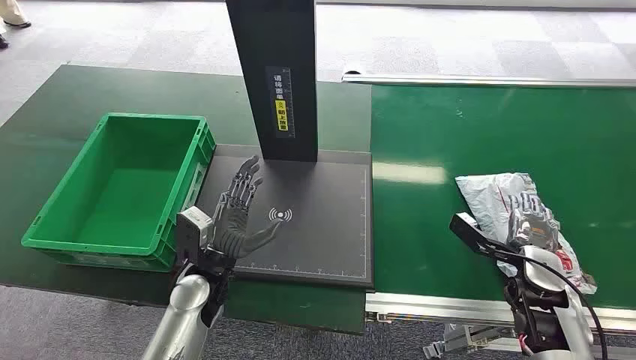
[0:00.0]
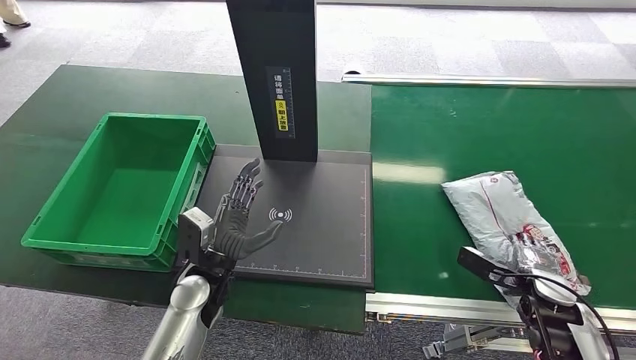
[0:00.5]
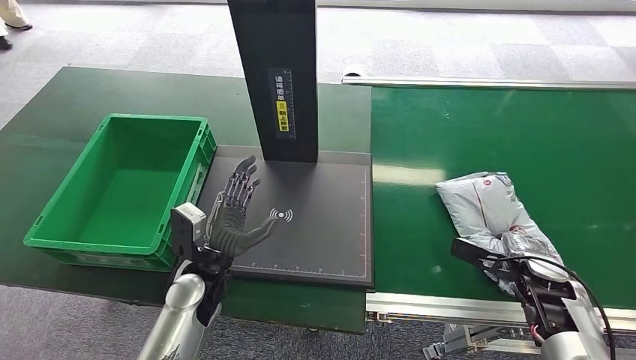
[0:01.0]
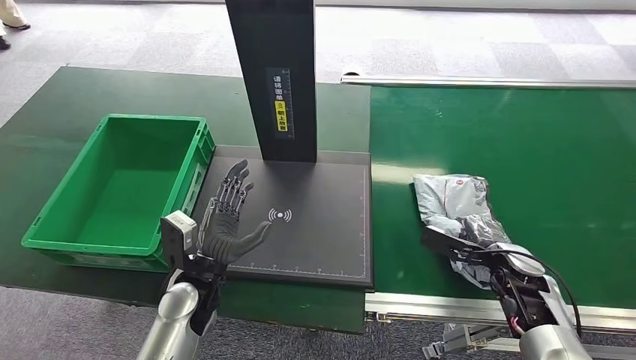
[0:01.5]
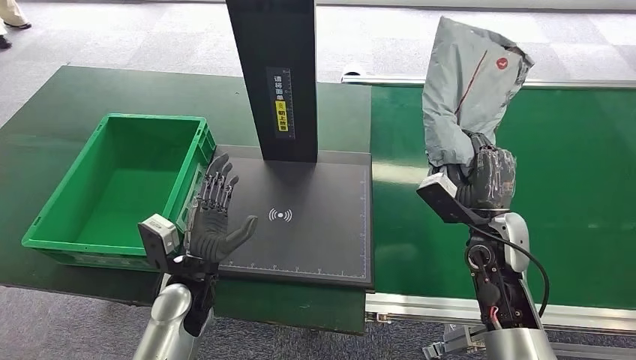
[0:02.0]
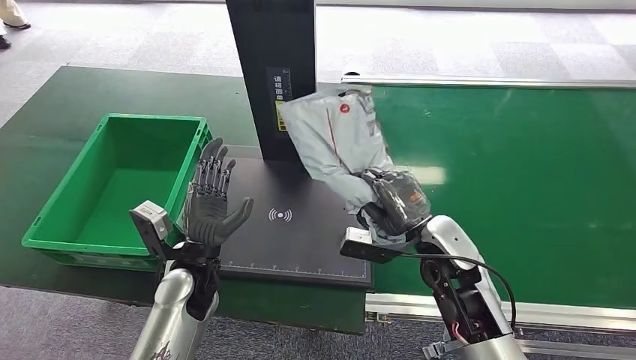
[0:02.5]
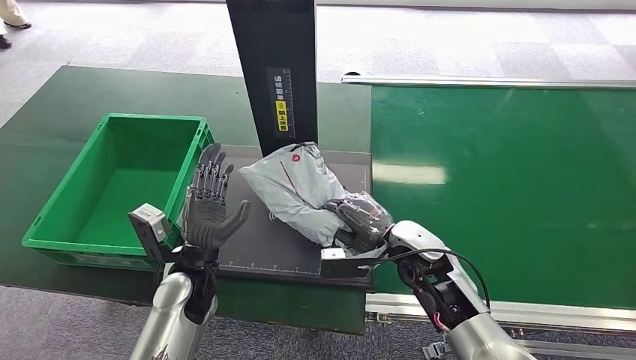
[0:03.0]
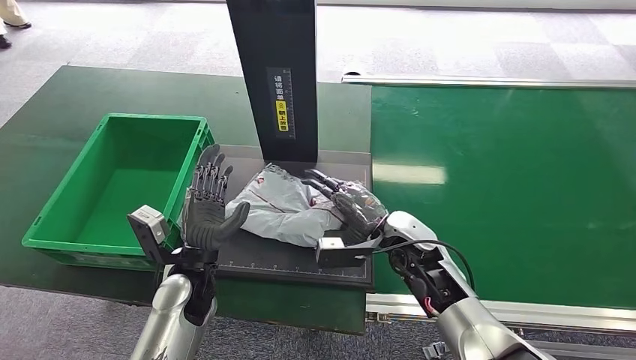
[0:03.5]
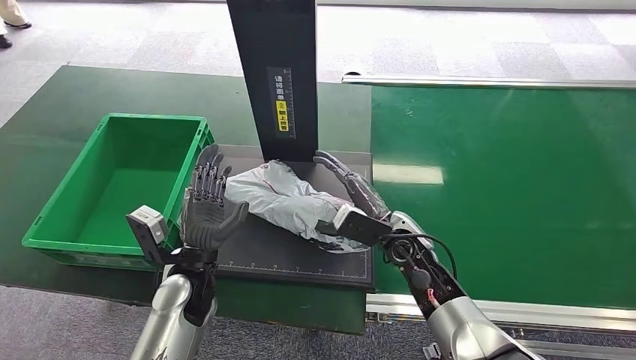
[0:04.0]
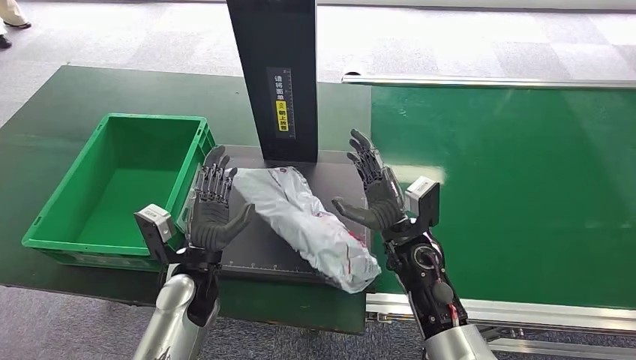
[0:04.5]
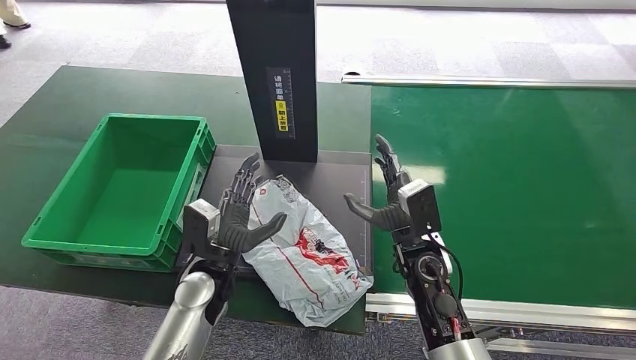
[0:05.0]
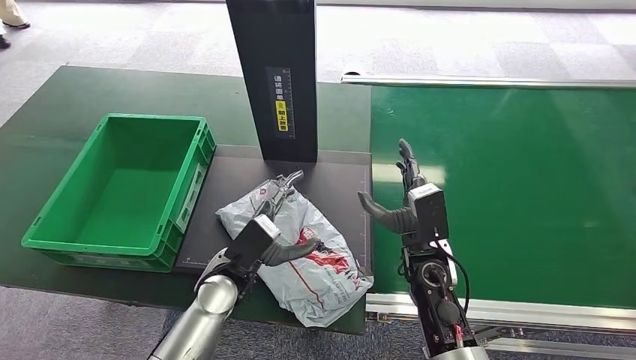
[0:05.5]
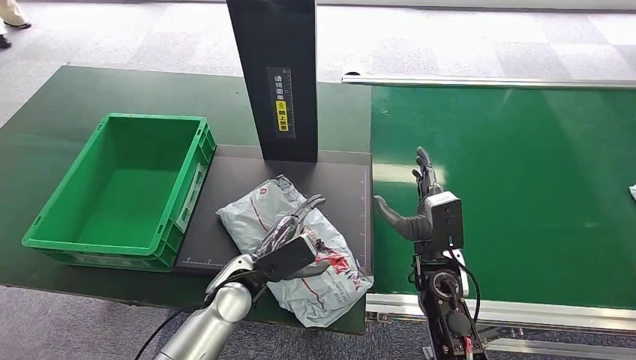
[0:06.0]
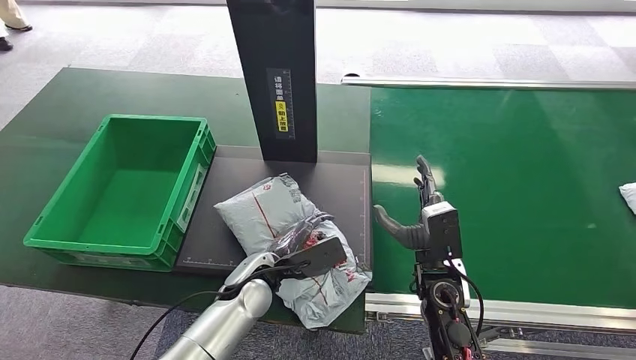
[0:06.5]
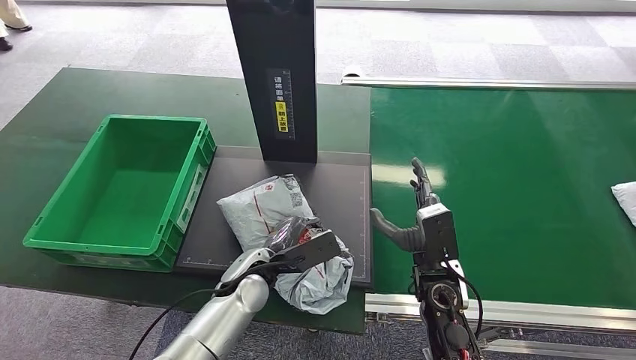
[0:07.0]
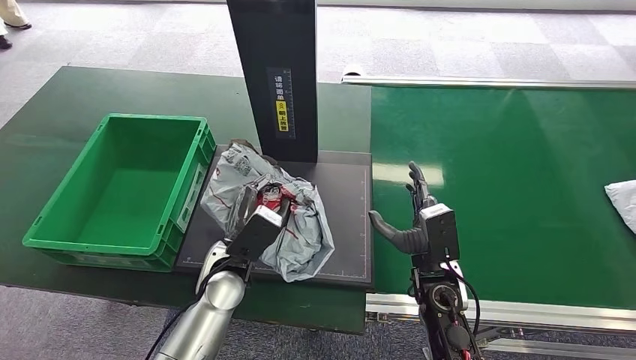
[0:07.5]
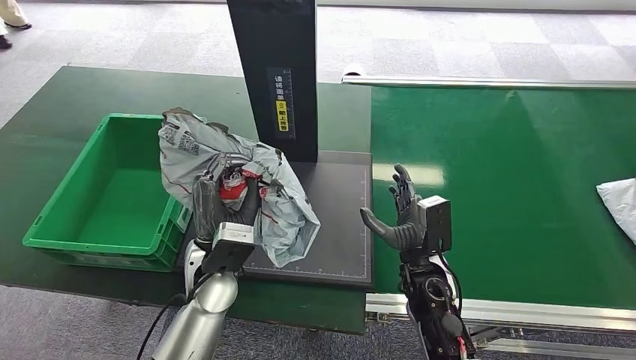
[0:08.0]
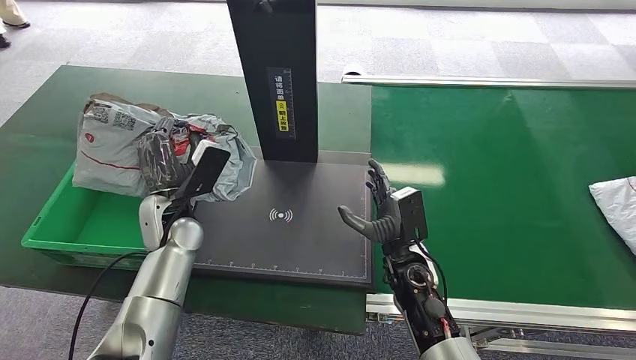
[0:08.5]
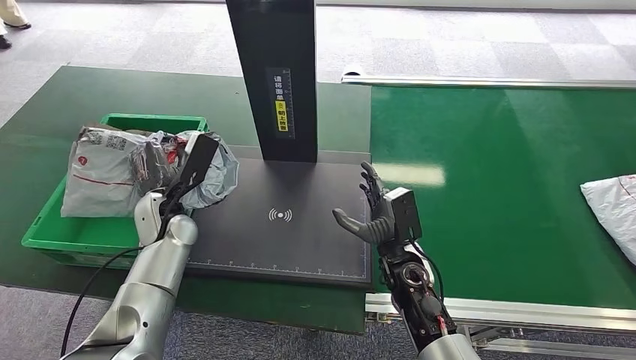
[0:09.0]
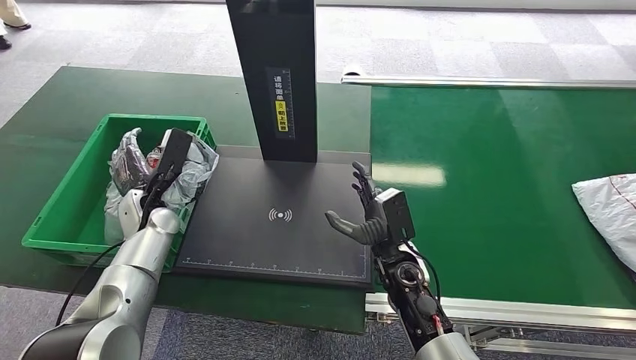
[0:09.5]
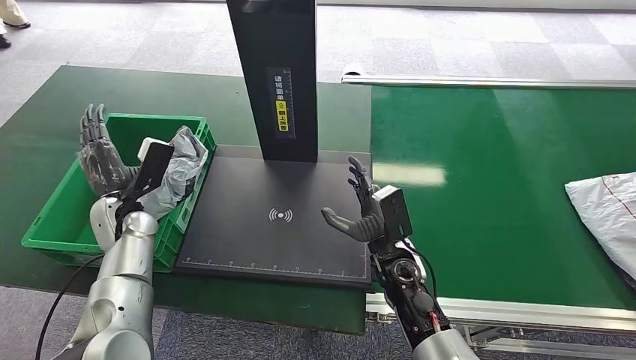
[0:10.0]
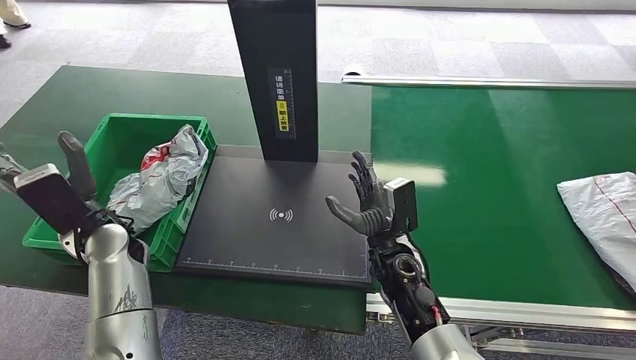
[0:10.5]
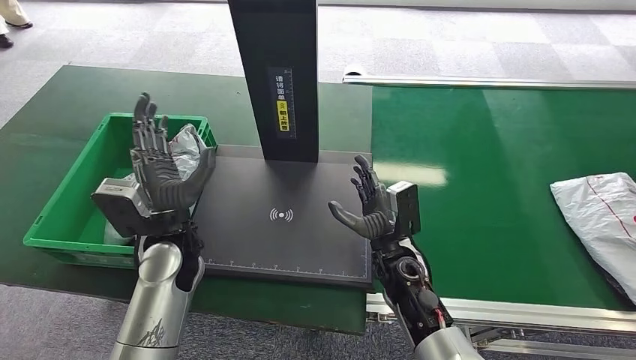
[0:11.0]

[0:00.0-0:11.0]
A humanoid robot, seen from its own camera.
Step, 0:00.0 to 0:02.0: Pick up the package from the conveyor belt.
Step, 0:02.5 to 0:04.0: Place the package onto the inbound machine.
Step, 0:06.5 to 0:08.0: Pick up the package from the inbound machine.
Step, 0:08.5 to 0:11.0: Place the package into the parcel locker.
0:09.0 to 0:11.0: The left hand is displaced backward and to the right by roughly 10 cm.

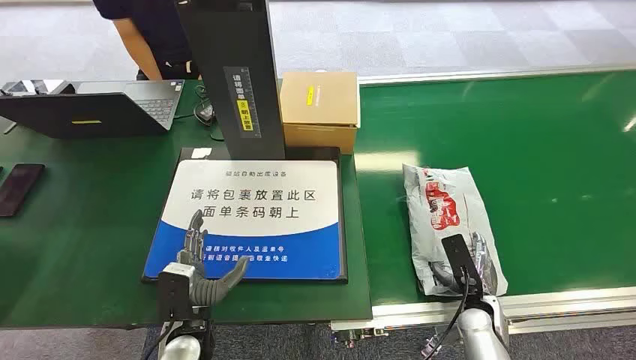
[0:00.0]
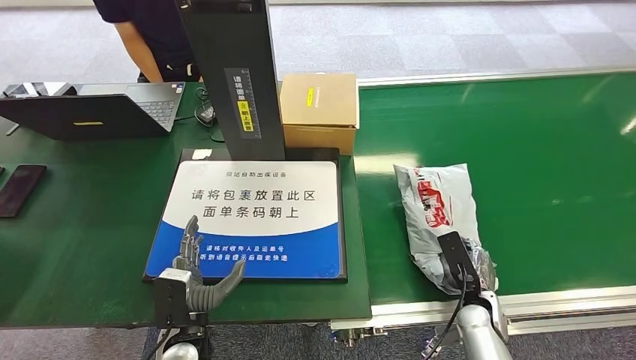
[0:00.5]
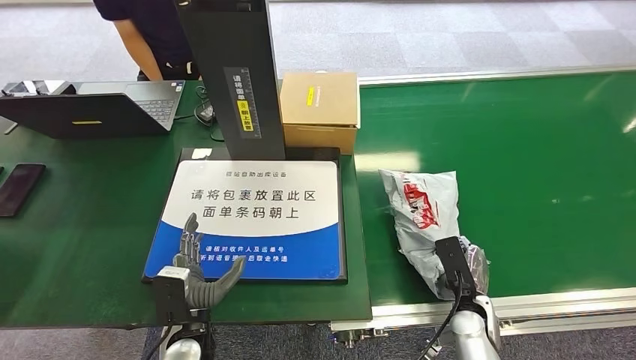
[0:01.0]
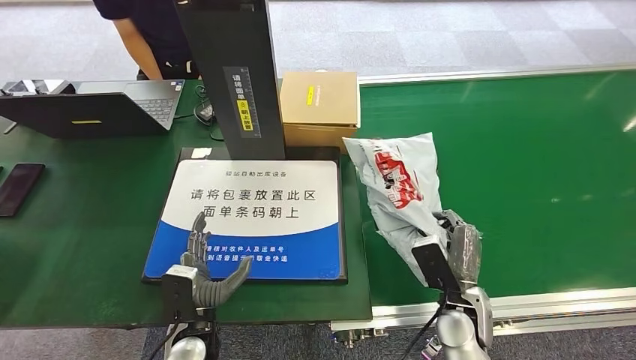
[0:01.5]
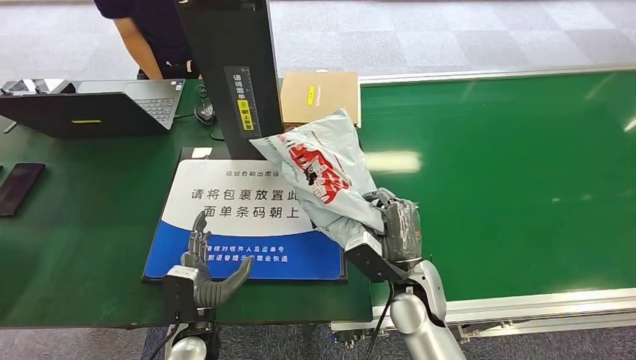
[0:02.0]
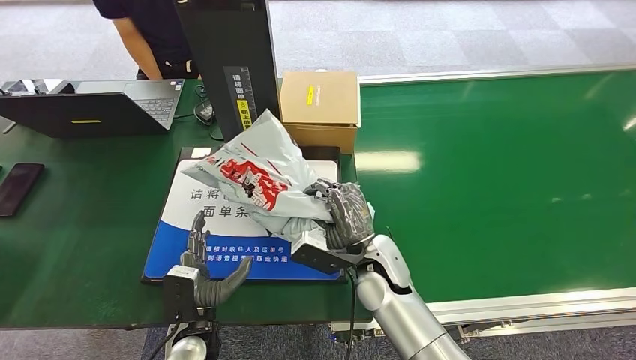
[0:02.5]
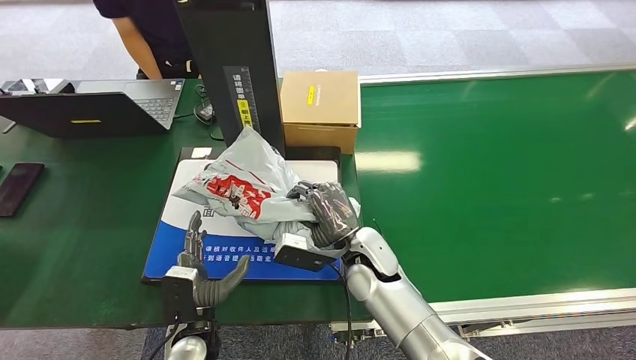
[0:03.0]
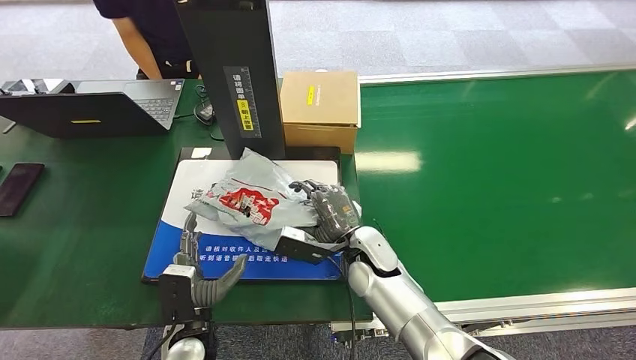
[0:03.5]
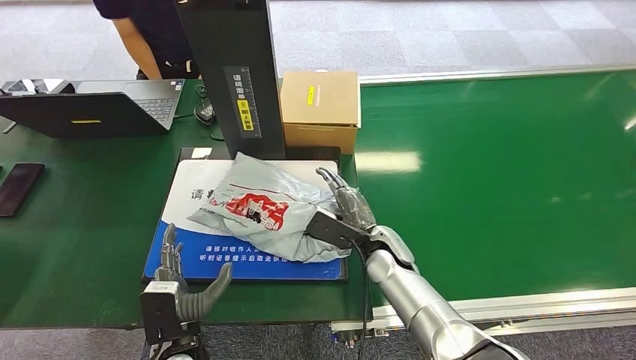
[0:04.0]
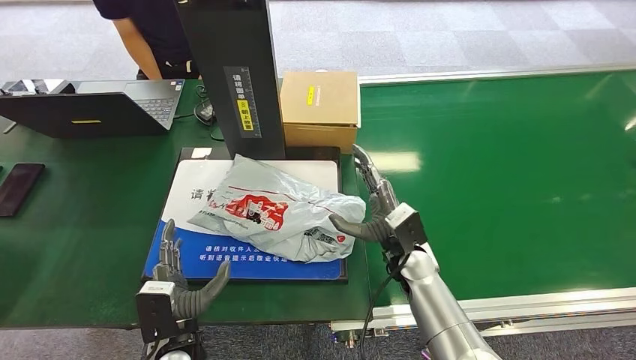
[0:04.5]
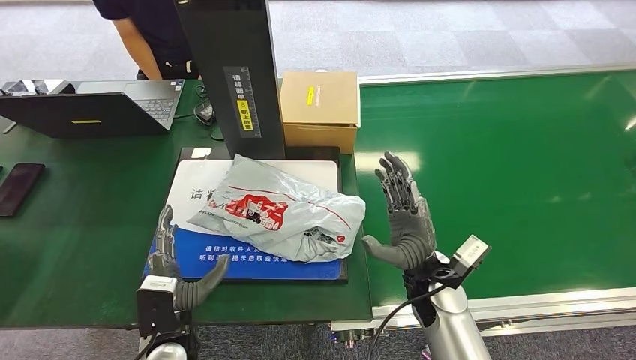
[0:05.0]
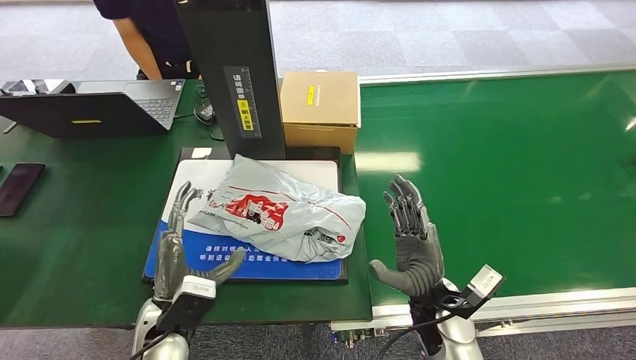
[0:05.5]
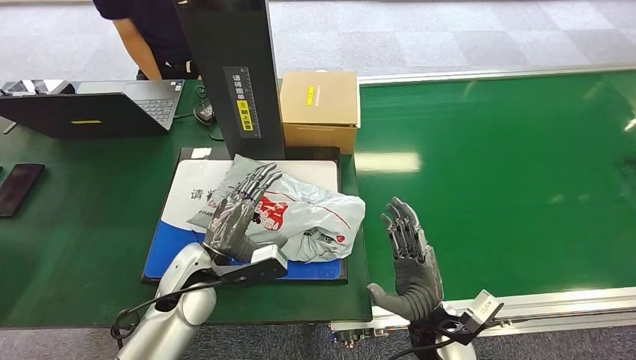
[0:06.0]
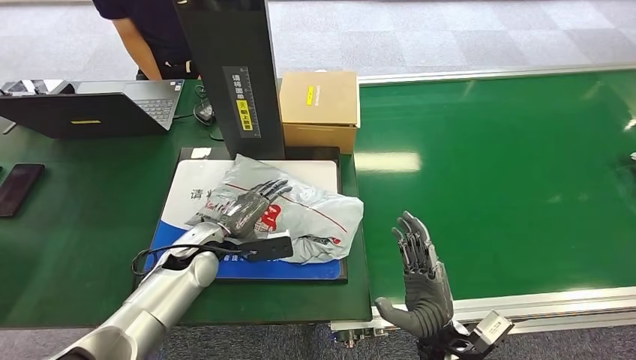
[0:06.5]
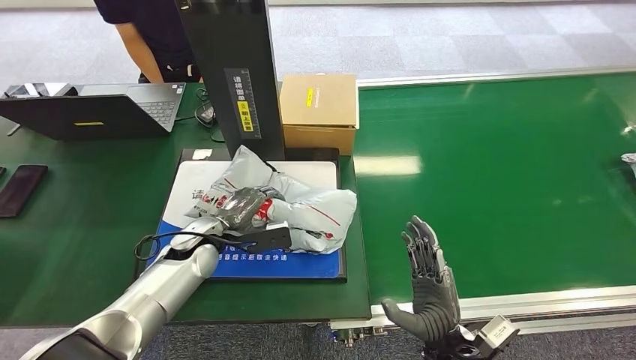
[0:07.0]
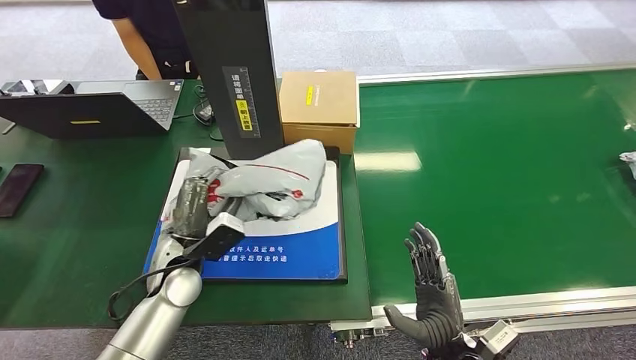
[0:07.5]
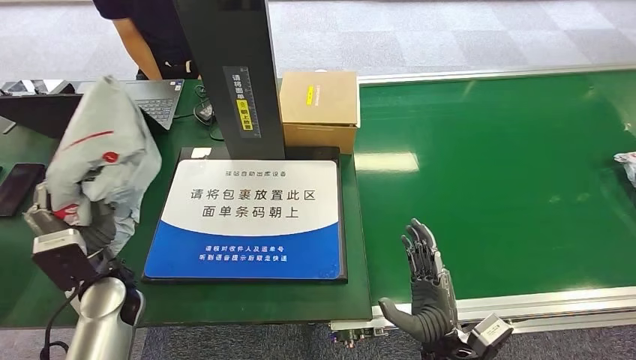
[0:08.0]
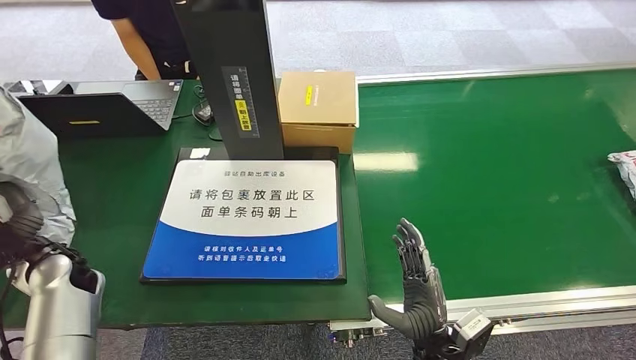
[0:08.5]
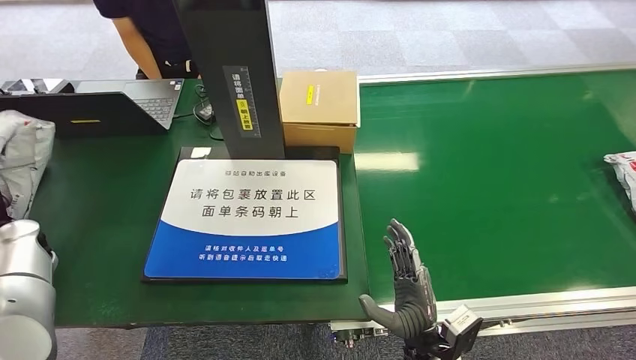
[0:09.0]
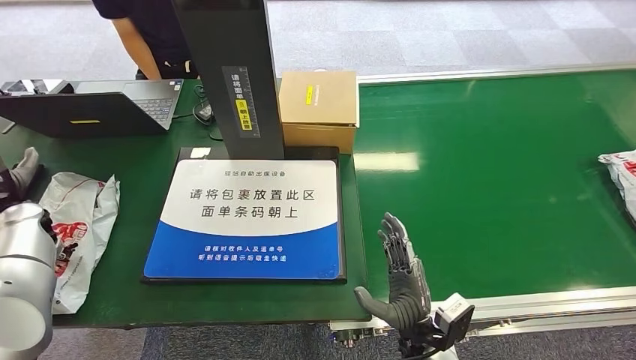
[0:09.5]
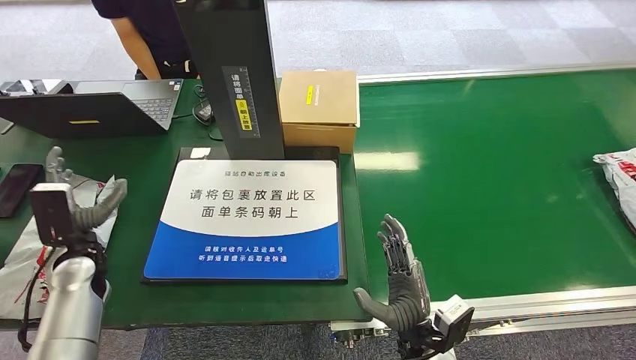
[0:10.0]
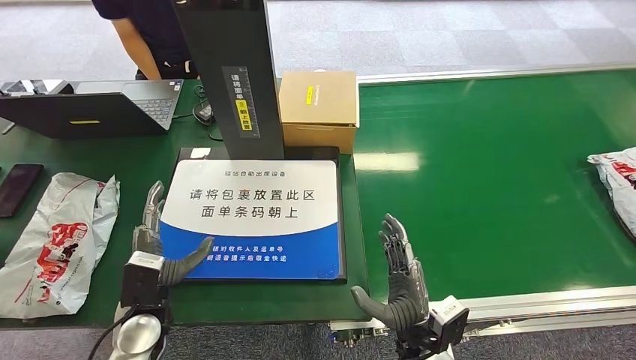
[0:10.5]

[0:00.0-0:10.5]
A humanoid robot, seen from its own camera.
Step, 0:00.0 to 0:01.5: Pick up the package from the conveyor belt.
Step, 0:02.0 to 0:04.5: Place the package onto the inbound machine.
Step, 0:05.0 to 0:08.0: Pick up the package from the inbound machine.
Step, 0:08.5 to 0:10.5: Place the package into the parcel locker.
0:02.0 to 0:04.0: The right hand is displaced forward by roughly 10 cm.
0:04.0 to 0:06.5: The left hand heads forward, covering about 15 cm. The right hand heads backward and to the right, covering about 20 cm.
0:06.5 to 0:08.5: The left hand goes about 20 cm to the left.
0:08.5 to 0:10.5: The left hand is displaced to the right and backward by approximately 15 cm.
